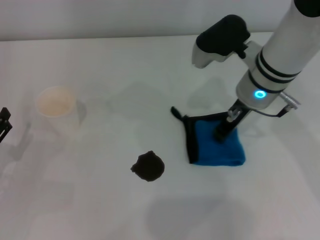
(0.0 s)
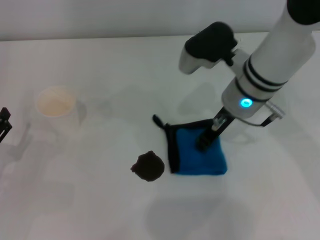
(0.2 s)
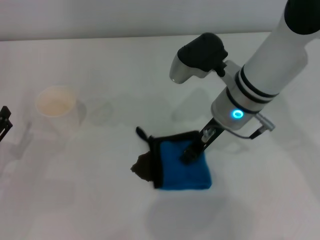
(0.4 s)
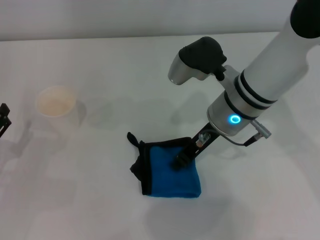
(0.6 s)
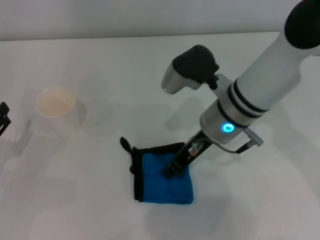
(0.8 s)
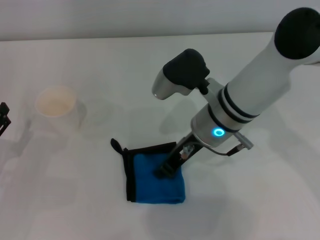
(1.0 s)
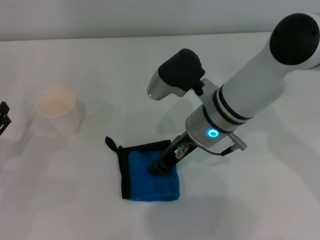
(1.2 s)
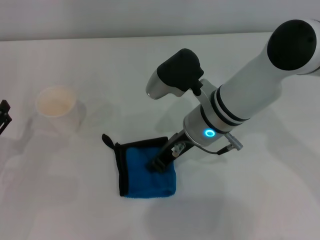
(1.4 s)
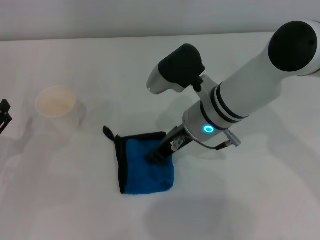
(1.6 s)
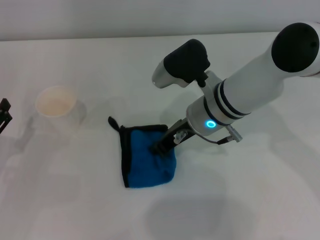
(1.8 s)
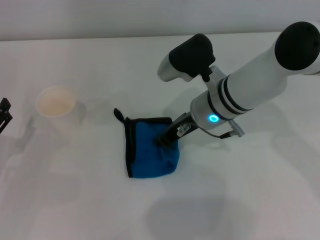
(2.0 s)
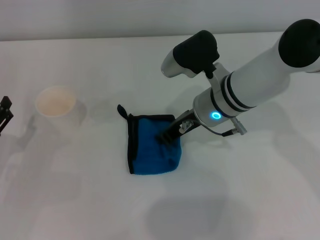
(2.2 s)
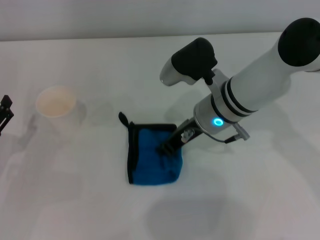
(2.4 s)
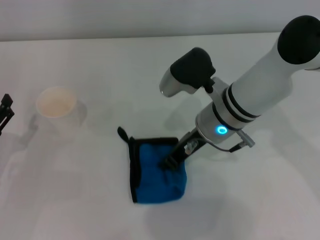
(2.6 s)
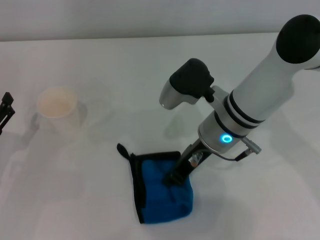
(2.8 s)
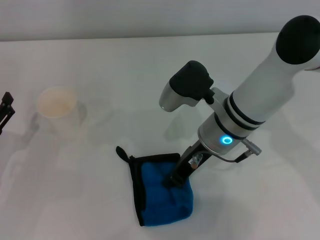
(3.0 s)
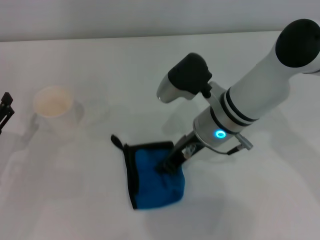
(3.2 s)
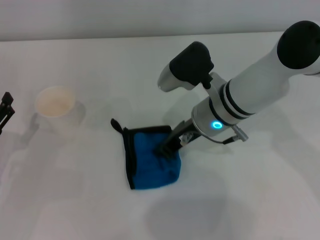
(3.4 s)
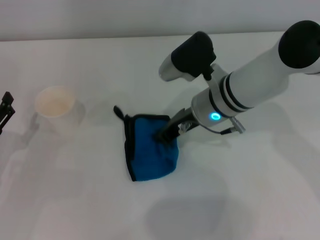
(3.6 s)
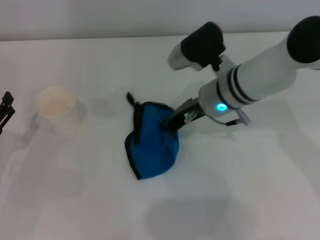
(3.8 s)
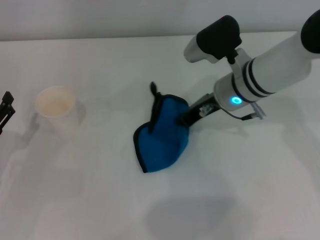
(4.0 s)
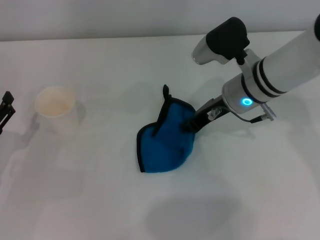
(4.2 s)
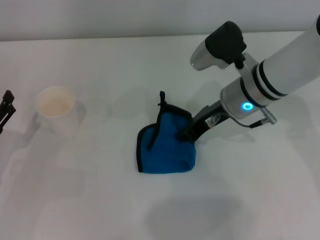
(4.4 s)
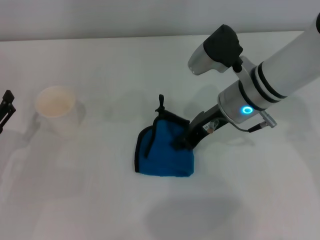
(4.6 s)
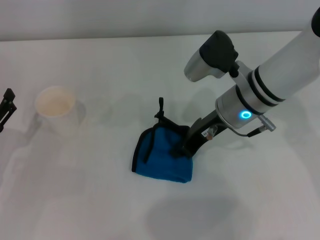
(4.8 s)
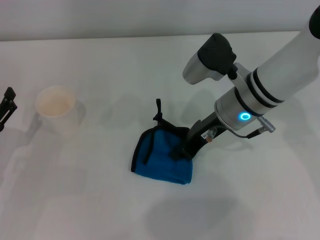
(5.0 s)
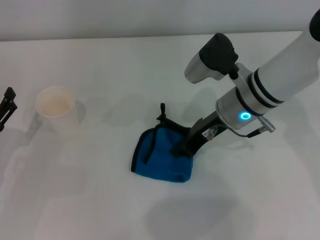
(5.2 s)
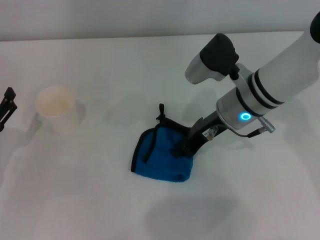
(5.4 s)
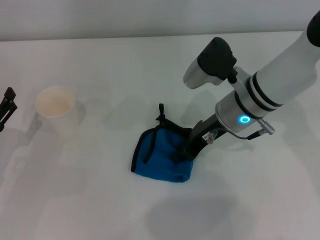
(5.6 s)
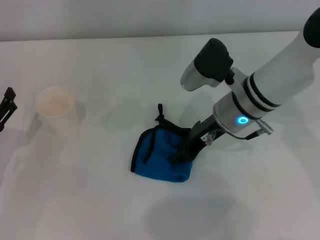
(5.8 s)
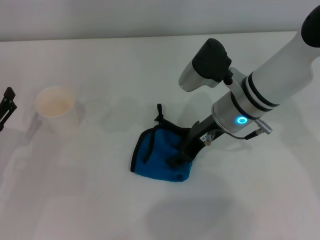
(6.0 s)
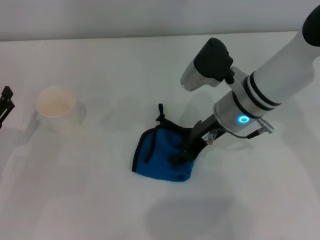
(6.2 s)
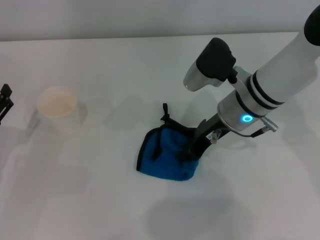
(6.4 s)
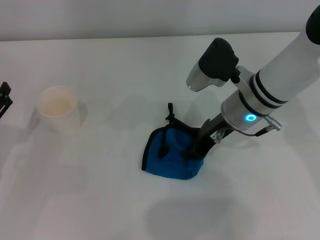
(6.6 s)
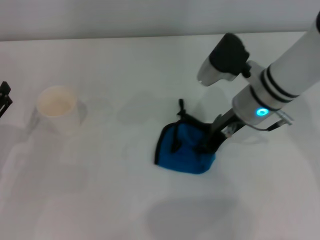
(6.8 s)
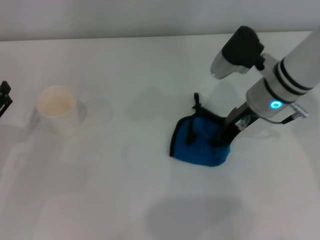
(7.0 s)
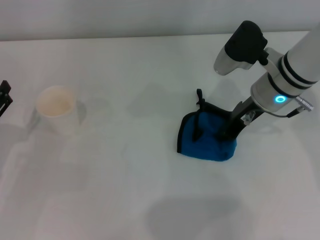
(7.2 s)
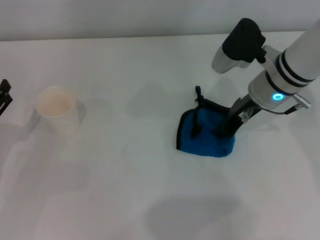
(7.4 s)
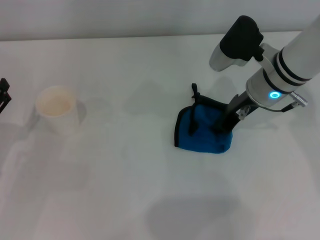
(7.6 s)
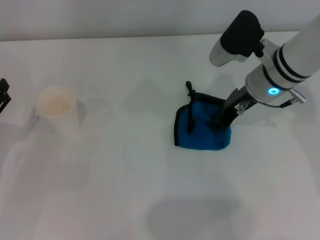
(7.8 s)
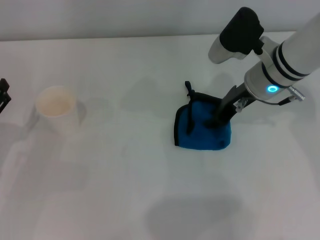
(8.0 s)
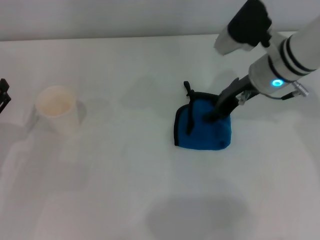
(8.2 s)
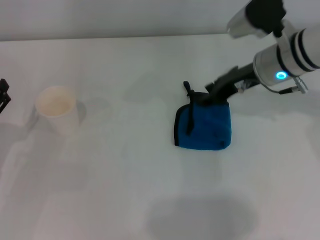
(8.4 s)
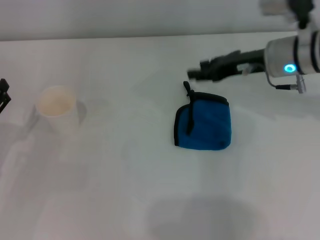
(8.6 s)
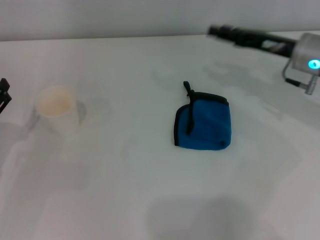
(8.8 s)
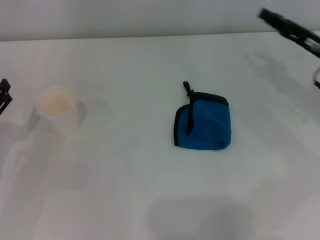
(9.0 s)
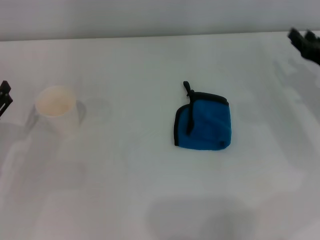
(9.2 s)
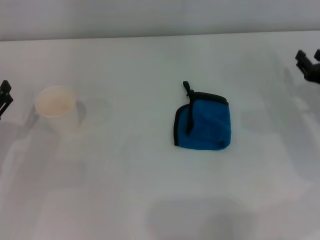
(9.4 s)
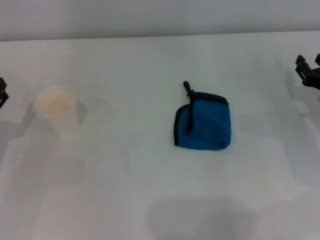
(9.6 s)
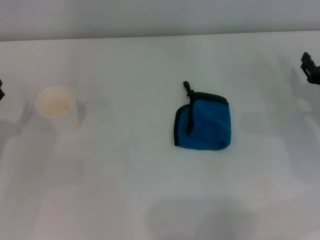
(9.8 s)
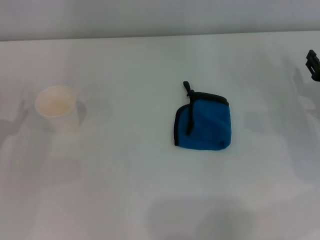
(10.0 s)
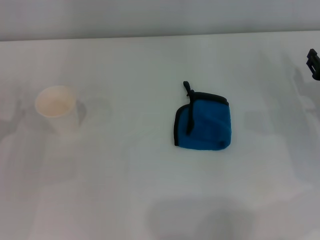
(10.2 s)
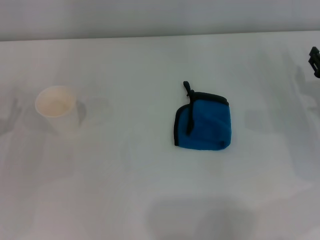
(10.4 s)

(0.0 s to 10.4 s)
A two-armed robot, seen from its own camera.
Step, 0.0 s - 7.4 s: Wipe the stains off the table with the right gripper.
Step, 7.6 s - 8.2 s: Place the rag on the table with the right gripper.
0.0 s - 1.4 s: The right gripper heads to the left, covering roughly 5 cm.
1.4 s - 3.0 s: There are only small adjustments of the grippers.
3.0 s - 4.4 s: The right gripper shifts by about 5 cm.
4.4 s - 6.0 s: The right gripper opens.
6.0 s - 7.4 s: The right gripper shifts some 5 cm to the right.
7.4 s - 9.0 s: The right gripper travels to the right by approximately 10 cm, and opens.
9.0 s - 10.4 s: The right gripper shifts roughly 5 cm downward.

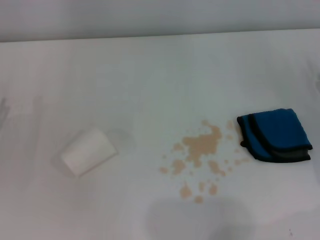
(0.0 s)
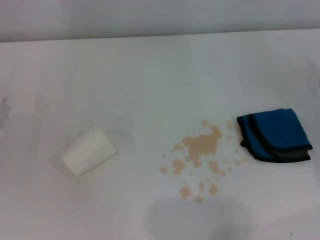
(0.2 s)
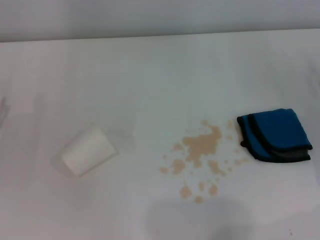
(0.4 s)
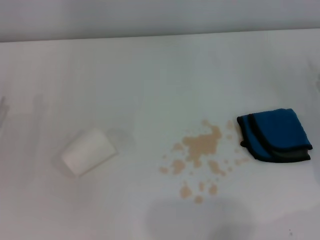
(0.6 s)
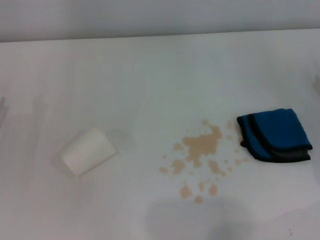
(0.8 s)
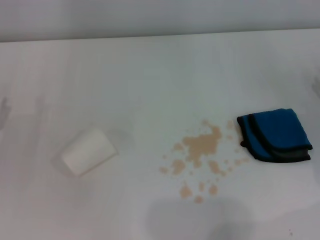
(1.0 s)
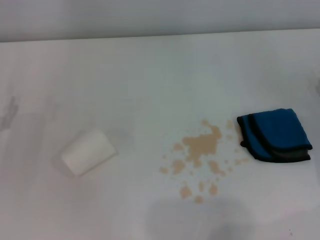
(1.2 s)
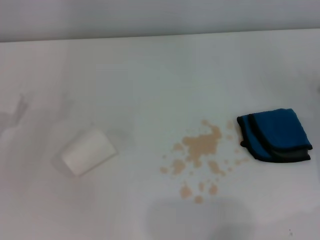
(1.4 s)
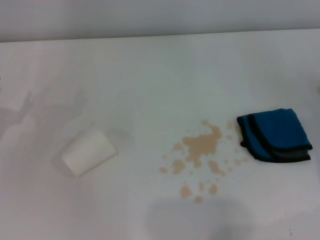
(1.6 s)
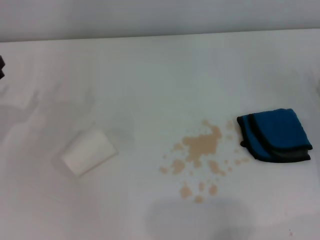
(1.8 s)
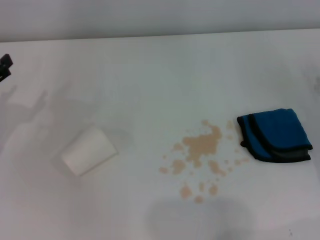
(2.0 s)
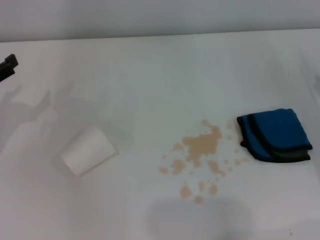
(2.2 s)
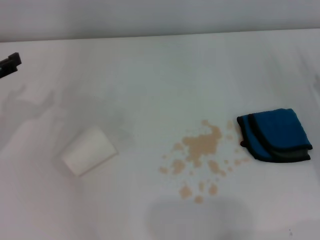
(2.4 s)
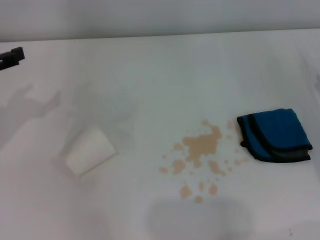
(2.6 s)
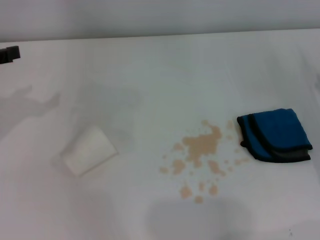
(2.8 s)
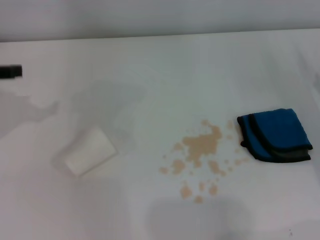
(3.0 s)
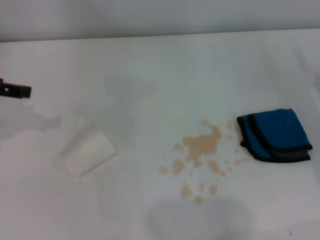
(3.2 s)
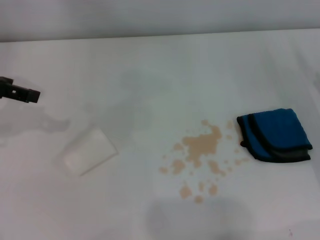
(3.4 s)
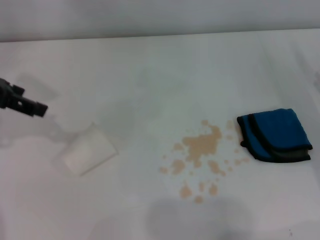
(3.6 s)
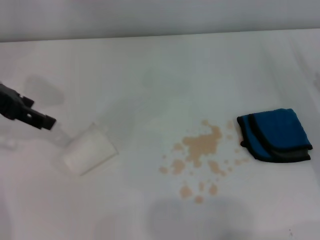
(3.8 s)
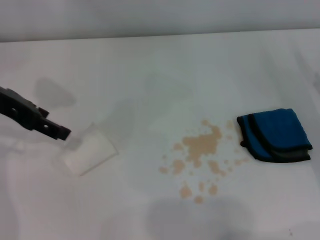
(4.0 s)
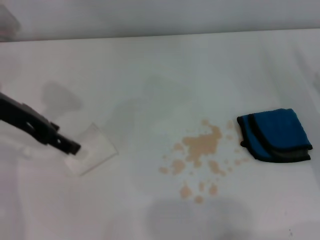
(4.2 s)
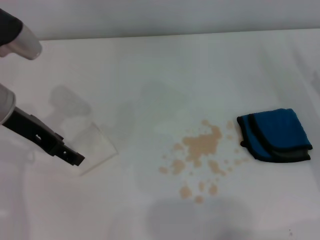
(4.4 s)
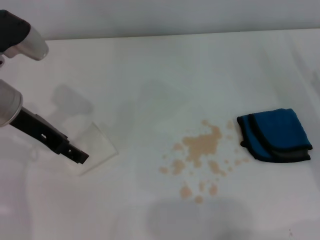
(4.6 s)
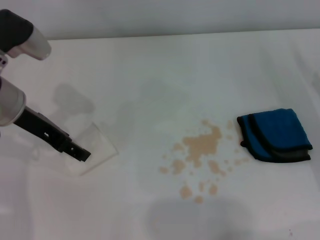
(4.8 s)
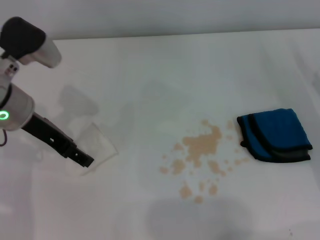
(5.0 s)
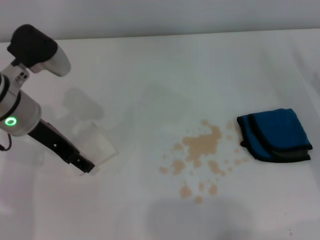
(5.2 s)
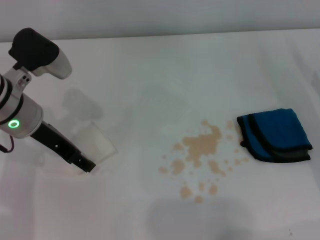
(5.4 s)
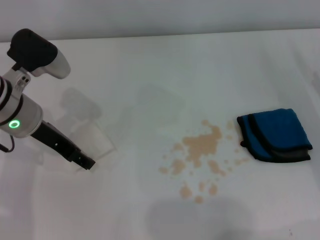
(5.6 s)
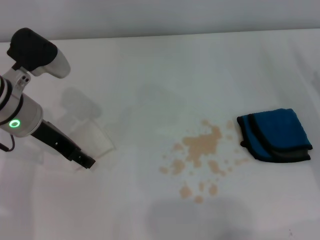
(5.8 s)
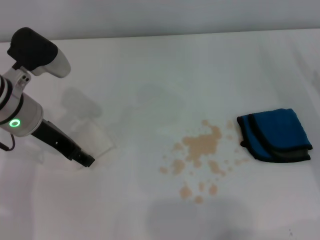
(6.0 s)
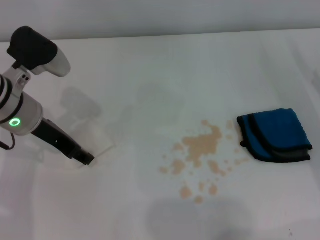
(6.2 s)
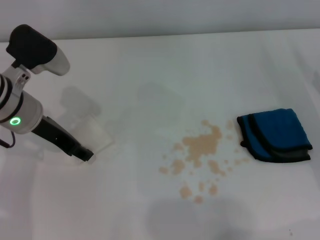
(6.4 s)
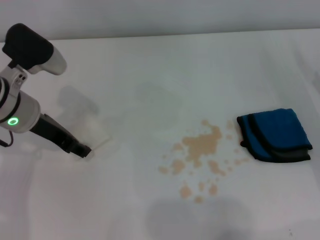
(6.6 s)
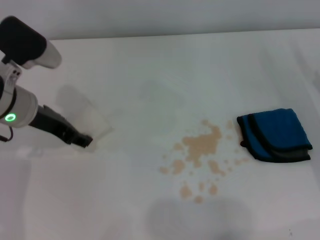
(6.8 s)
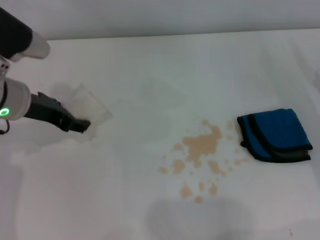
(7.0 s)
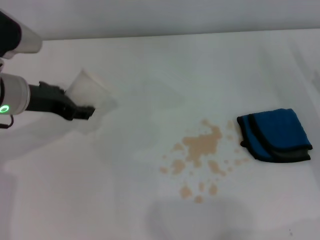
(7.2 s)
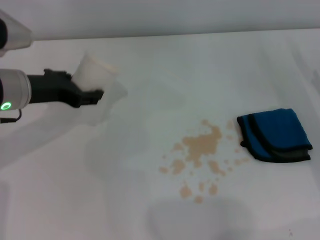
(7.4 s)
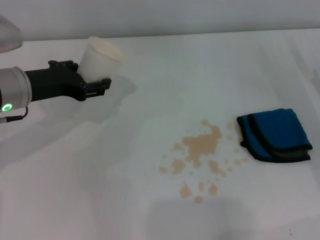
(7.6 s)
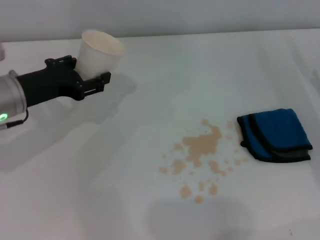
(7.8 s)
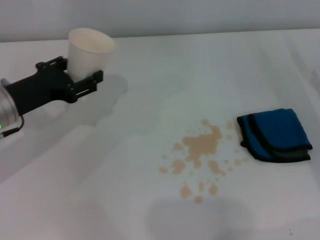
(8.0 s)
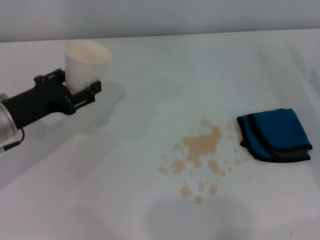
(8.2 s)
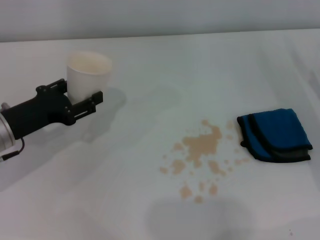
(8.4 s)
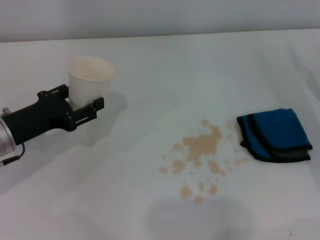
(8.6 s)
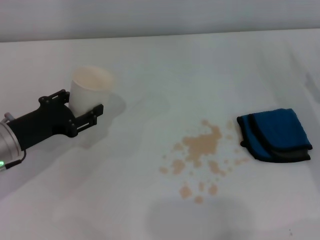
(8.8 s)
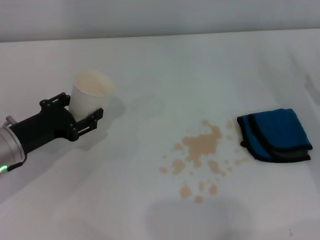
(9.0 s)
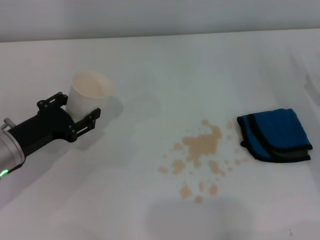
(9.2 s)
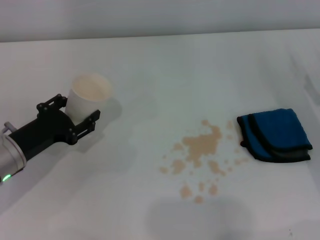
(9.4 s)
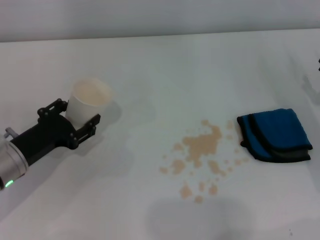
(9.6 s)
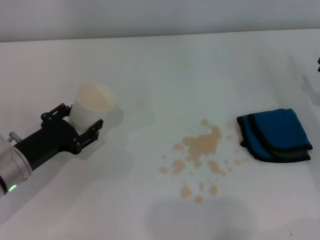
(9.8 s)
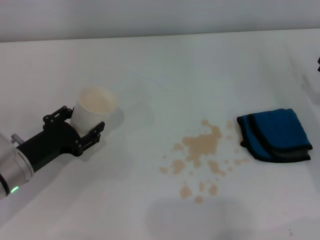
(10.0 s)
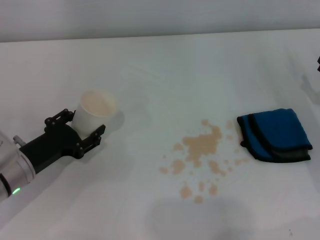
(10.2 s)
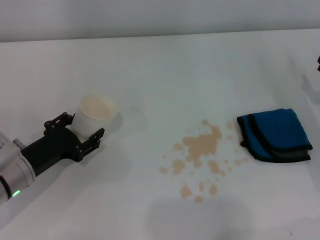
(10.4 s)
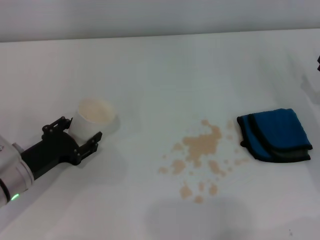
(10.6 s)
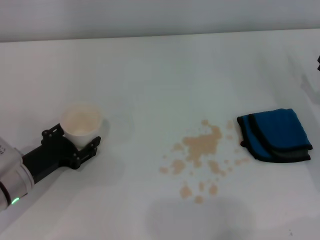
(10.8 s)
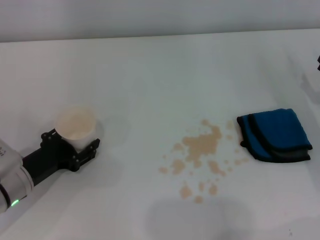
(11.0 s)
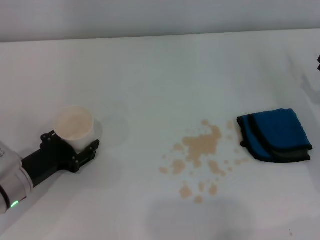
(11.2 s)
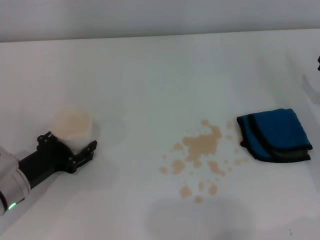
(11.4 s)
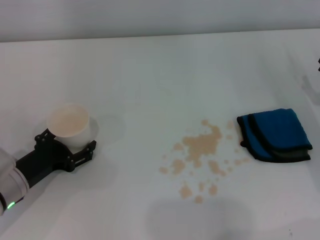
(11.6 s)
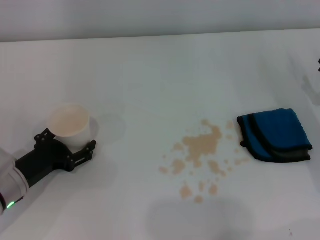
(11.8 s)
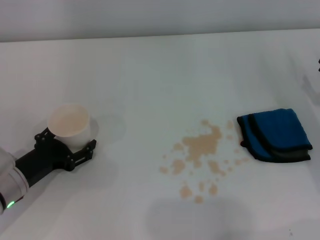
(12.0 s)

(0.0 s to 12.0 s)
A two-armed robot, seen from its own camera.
Step, 0.0 s - 5.8 s: Grasp the paper cup with the left gripper.
Step, 6.0 s - 11.4 s: Stand the paper cup upright with the left gripper.
3.0 s - 4.4 s: The left gripper is displaced to the right by roughly 10 cm.
4.4 s - 6.0 s: There are only small adjustments of the grippers.
6.0 s - 7.6 s: The left gripper closes its fingers.
7.6 s - 9.0 s: The left gripper heads downward and backward, covering about 10 cm.
9.0 s - 10.4 s: The grippers stay close to where they were, moving slightly.
10.4 s - 12.0 s: The left gripper opens up.
